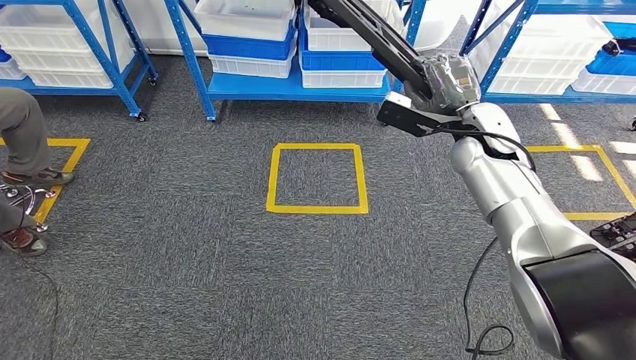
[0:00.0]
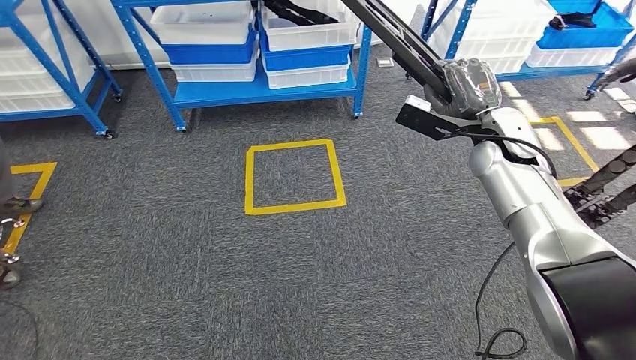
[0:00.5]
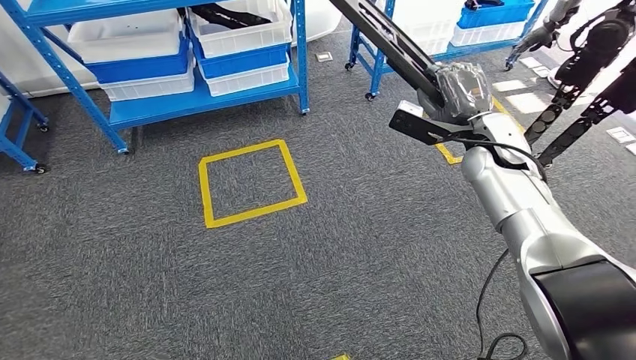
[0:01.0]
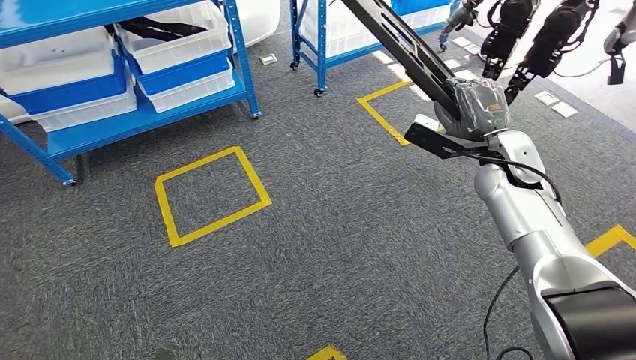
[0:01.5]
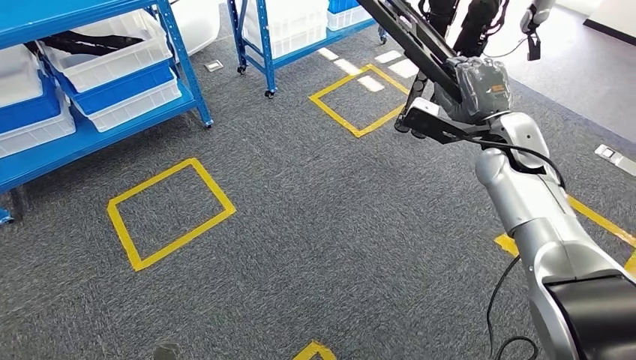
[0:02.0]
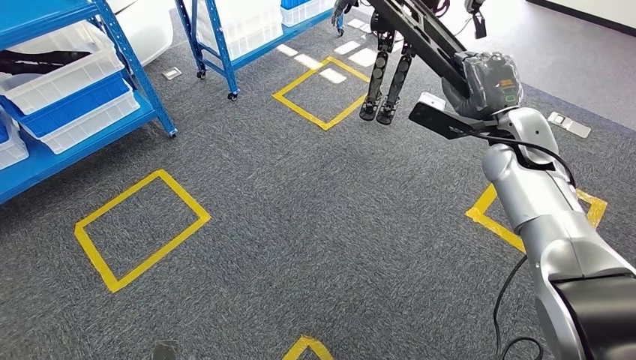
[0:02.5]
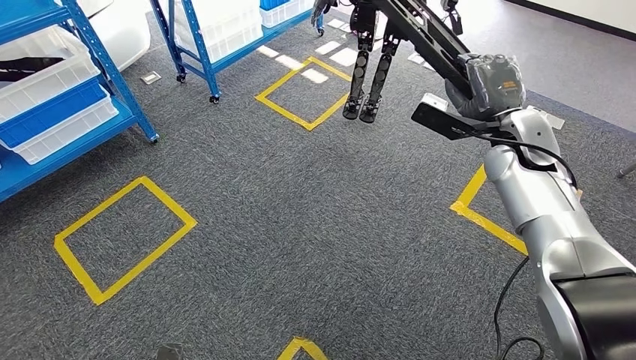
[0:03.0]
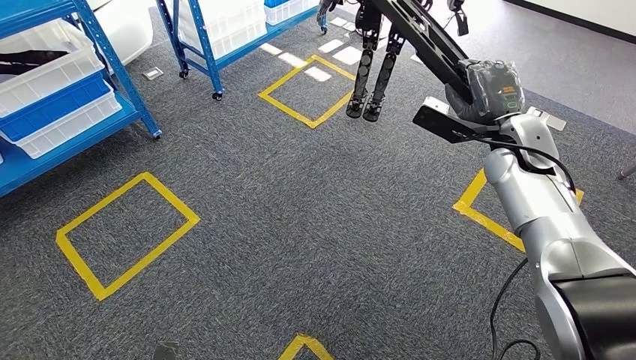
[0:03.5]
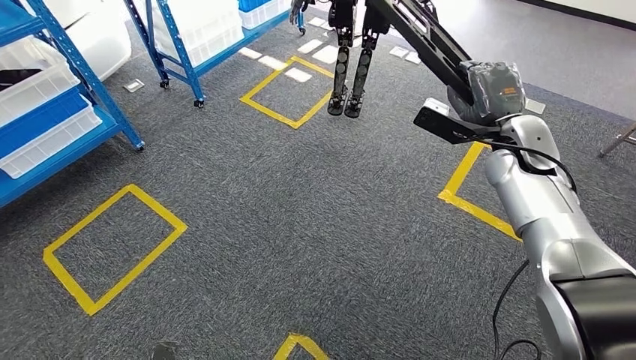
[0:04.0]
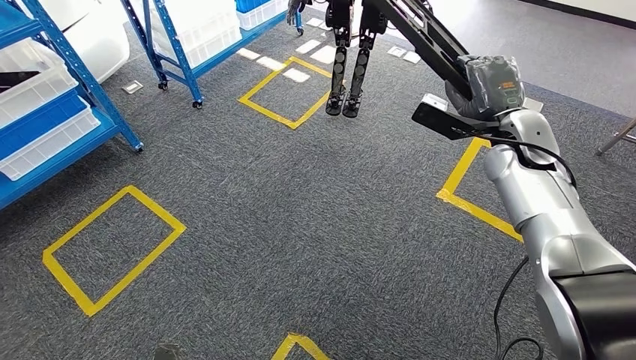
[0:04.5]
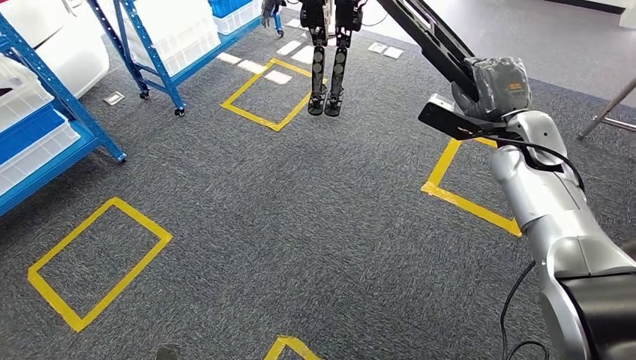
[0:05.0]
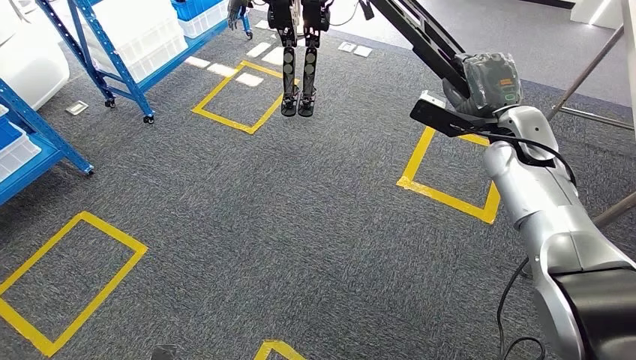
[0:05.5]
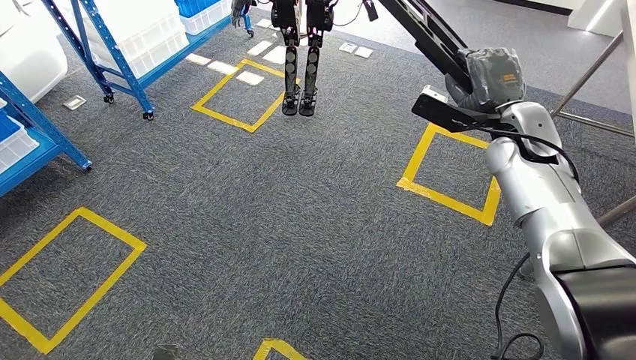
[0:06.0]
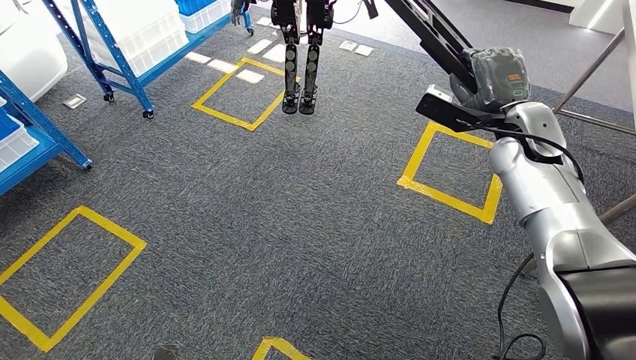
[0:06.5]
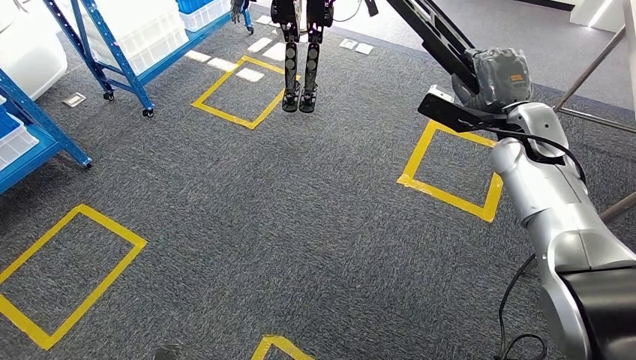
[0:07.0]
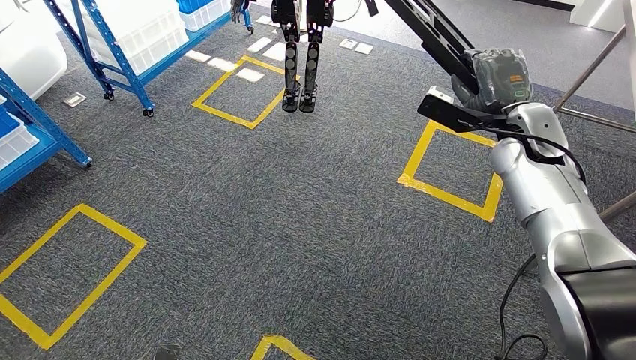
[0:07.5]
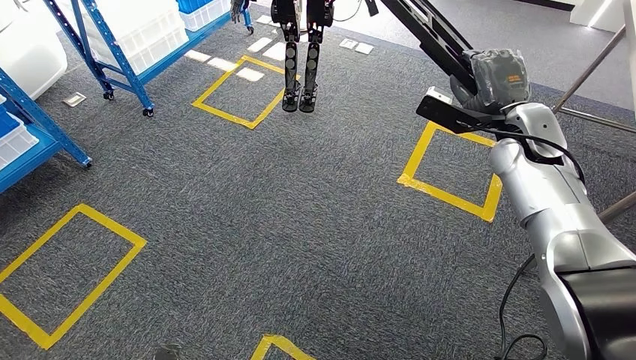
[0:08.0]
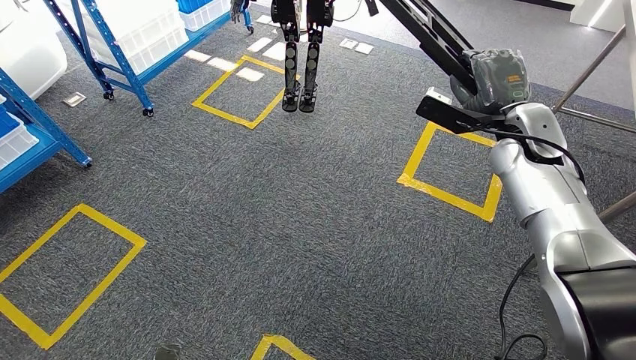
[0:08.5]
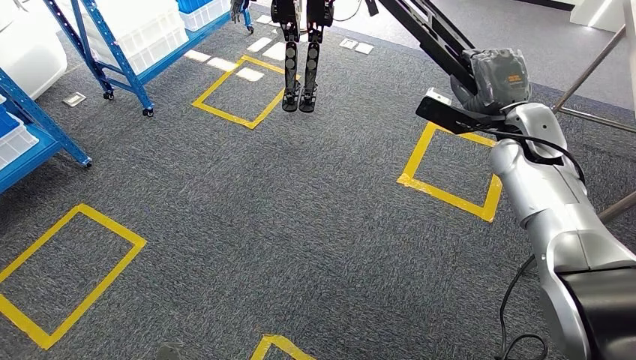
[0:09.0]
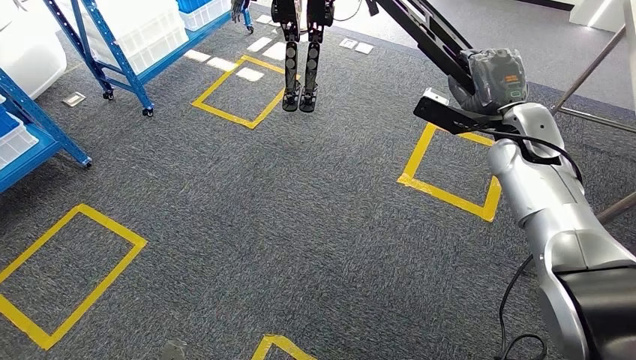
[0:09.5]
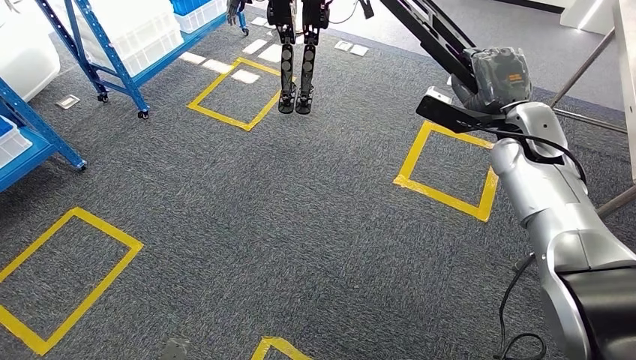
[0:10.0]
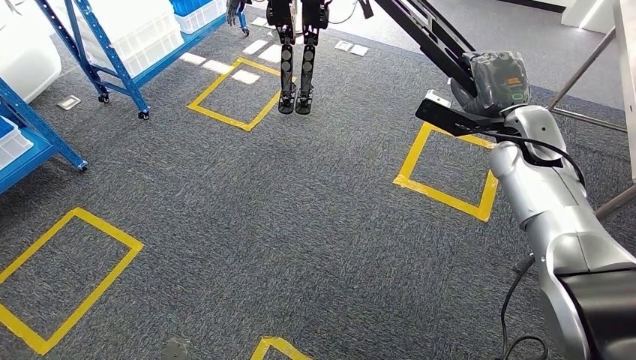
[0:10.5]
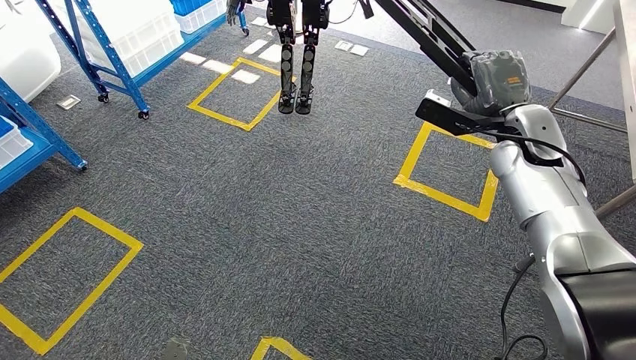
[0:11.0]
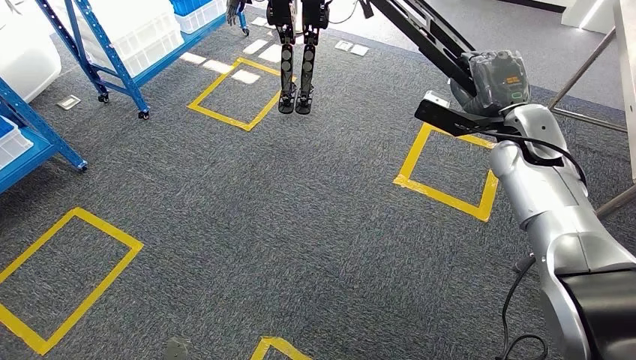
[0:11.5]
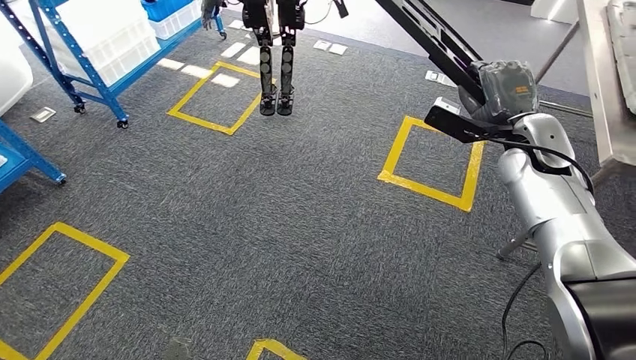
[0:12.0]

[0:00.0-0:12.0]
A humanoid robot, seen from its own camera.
6.0 to 8.0 s: The two hands keep their place.
8.0 to 10.0 s: The hands stay close to where they were, moving slightly.

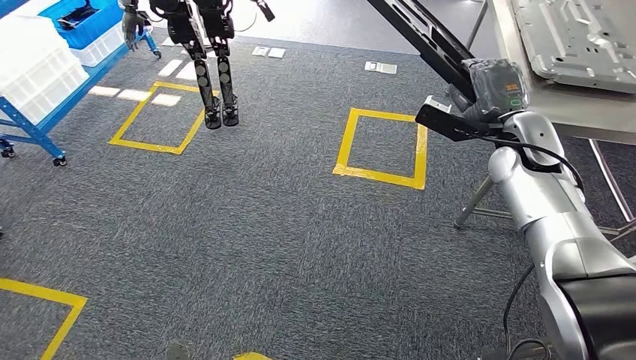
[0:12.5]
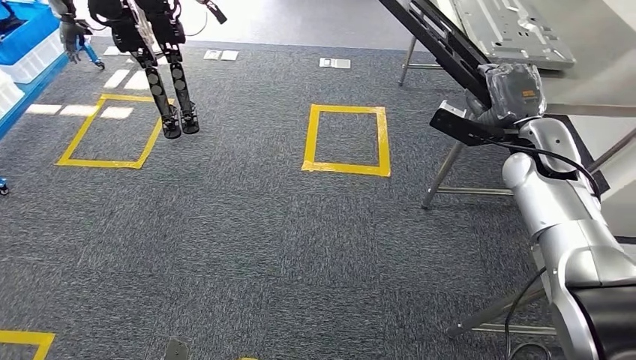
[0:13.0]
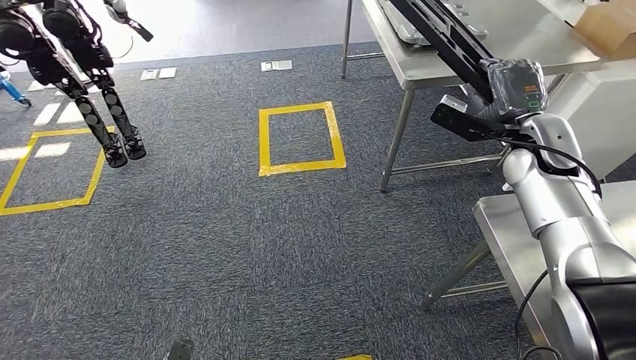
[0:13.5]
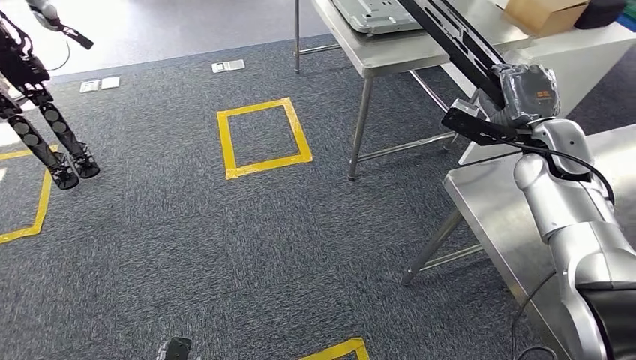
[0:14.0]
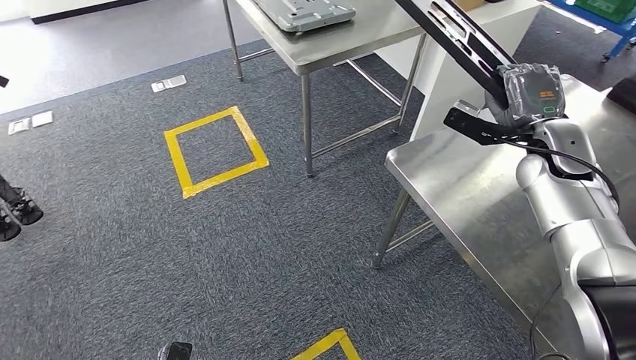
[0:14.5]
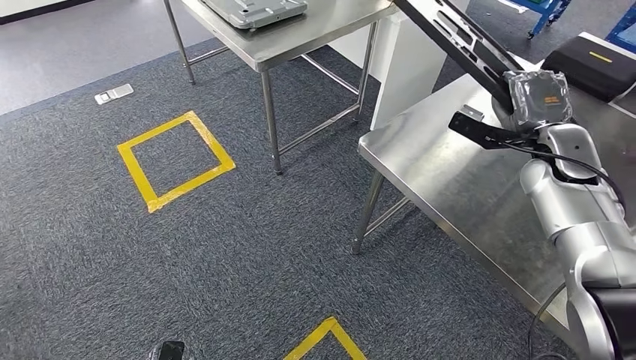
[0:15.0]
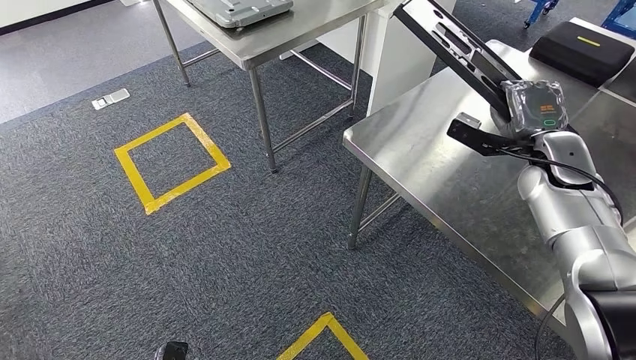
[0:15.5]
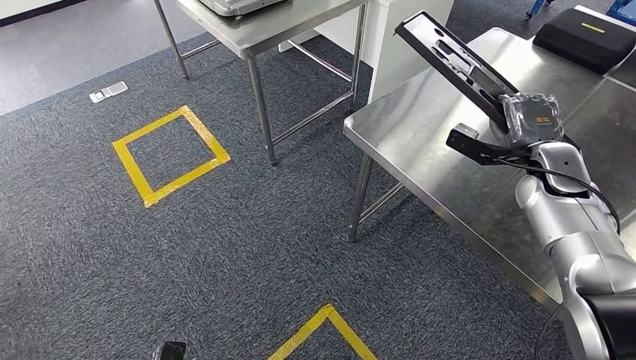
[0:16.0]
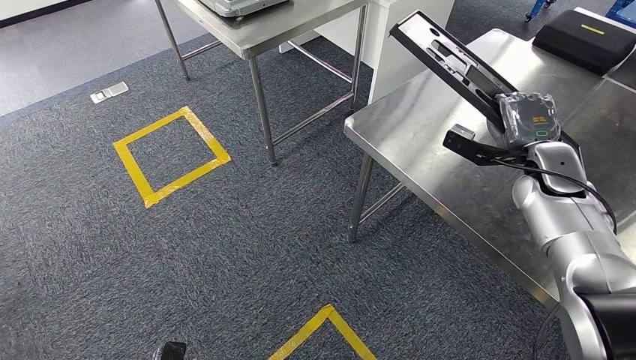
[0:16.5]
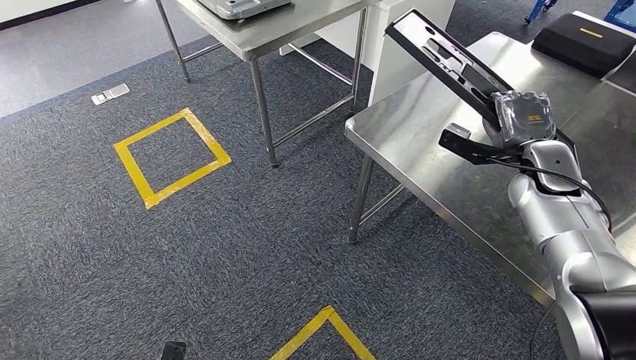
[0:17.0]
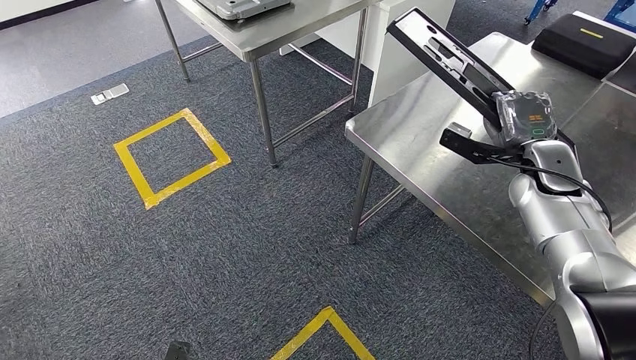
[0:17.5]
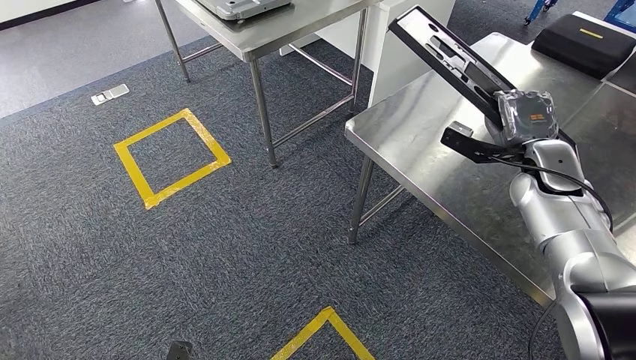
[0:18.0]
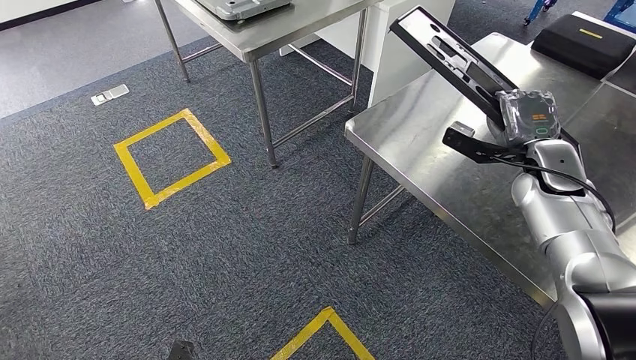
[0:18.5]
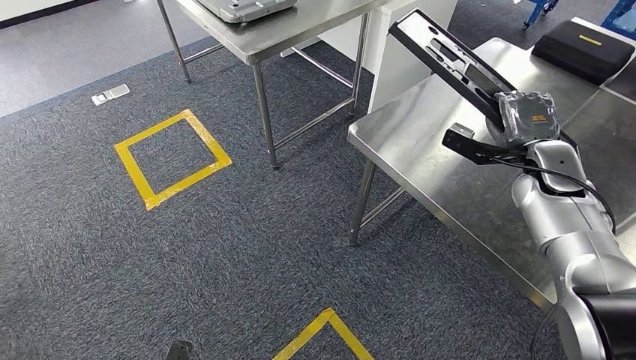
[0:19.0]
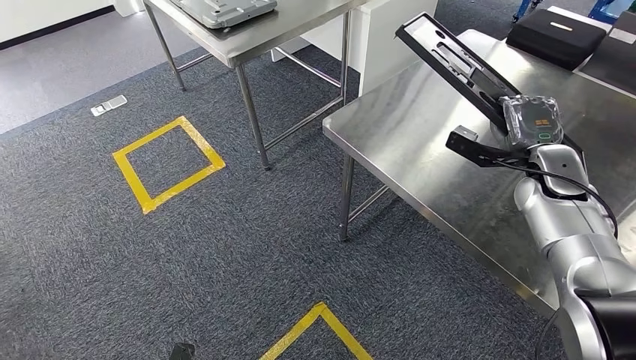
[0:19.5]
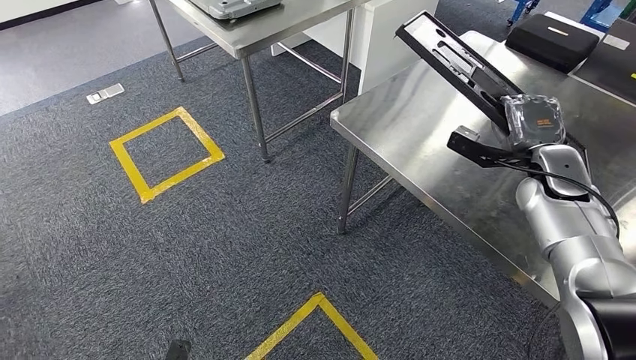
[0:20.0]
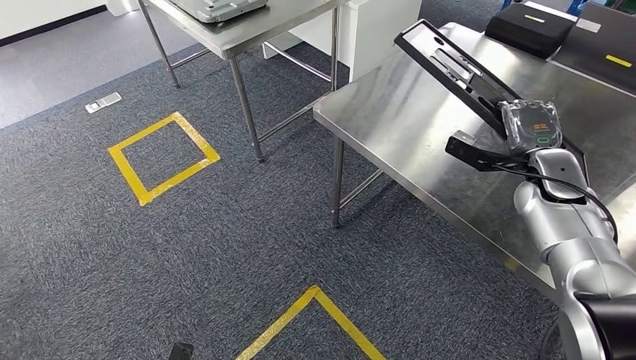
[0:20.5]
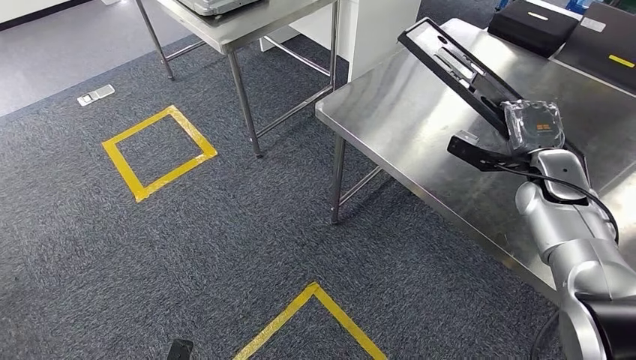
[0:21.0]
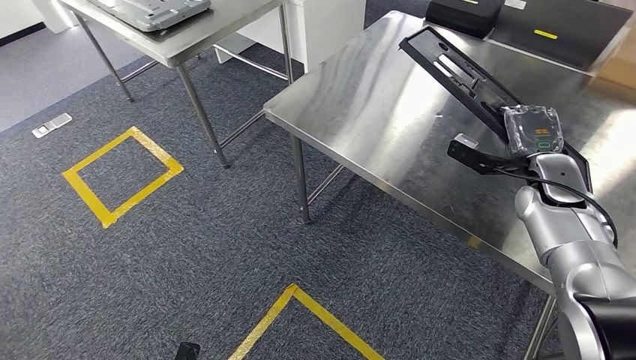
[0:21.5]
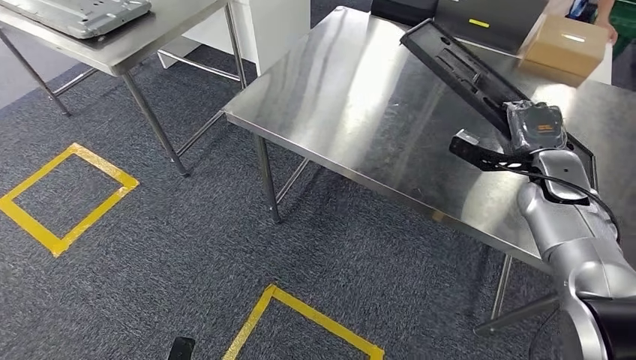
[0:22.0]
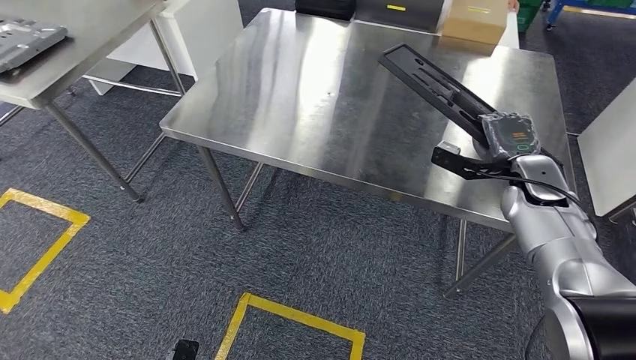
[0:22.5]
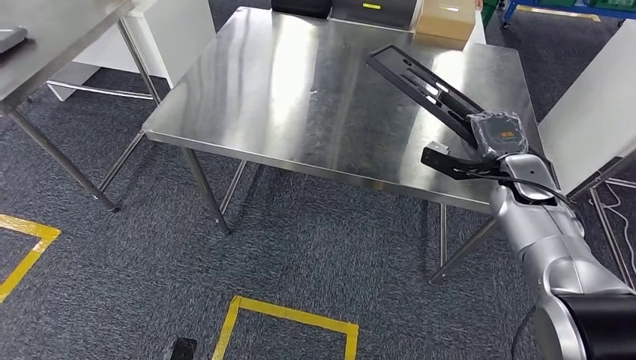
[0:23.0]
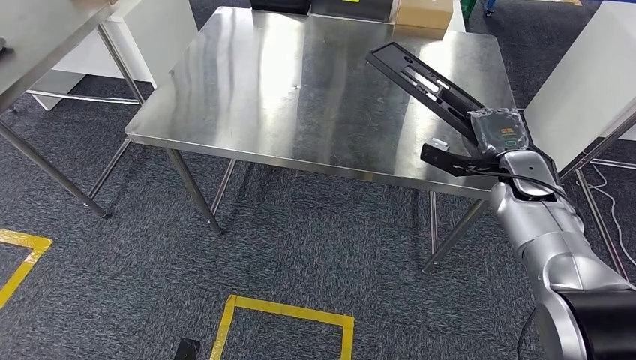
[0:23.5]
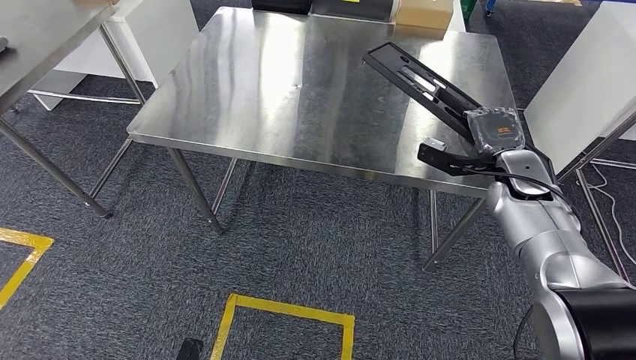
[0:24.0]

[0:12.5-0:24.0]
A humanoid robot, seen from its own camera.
Step, 12.5 to 18.5 s: Move the large material to the workbench.
16.5 to 18.5 s: The hands move only a little.
